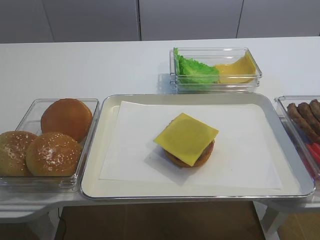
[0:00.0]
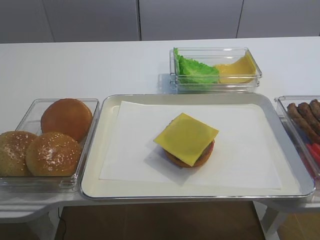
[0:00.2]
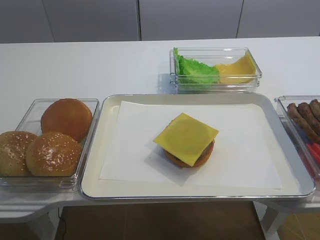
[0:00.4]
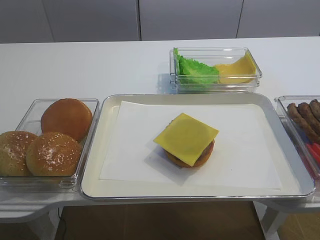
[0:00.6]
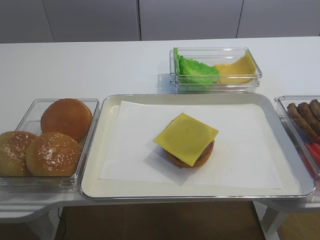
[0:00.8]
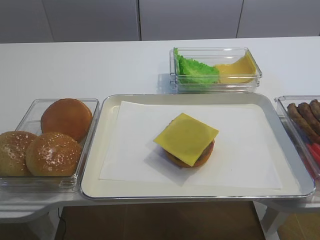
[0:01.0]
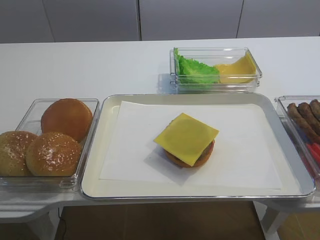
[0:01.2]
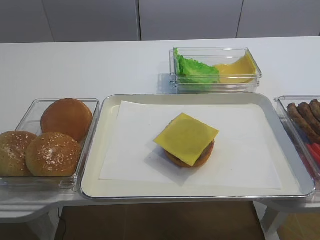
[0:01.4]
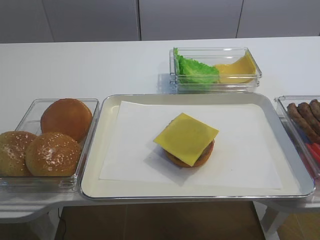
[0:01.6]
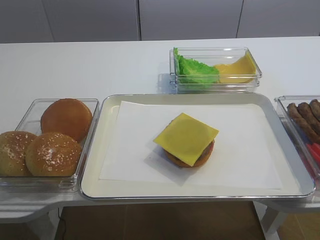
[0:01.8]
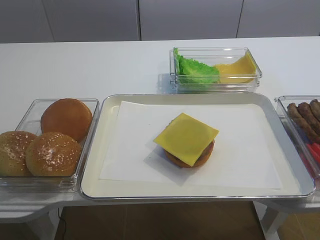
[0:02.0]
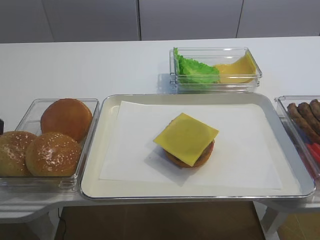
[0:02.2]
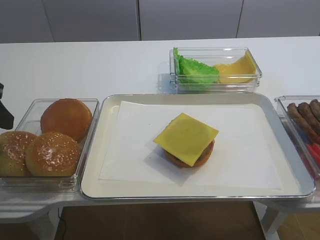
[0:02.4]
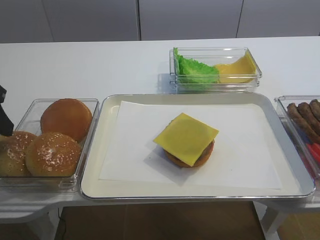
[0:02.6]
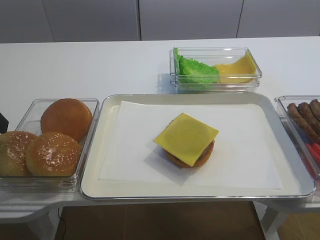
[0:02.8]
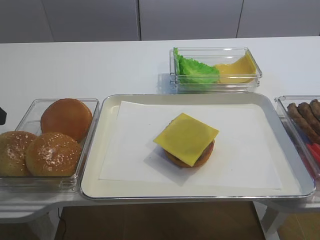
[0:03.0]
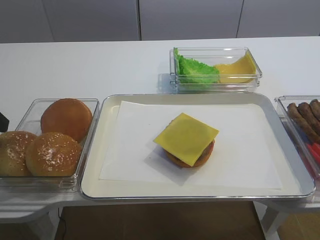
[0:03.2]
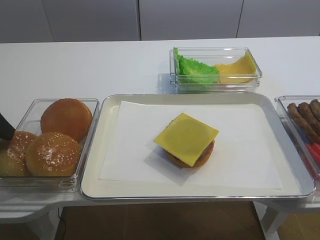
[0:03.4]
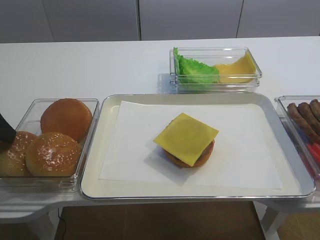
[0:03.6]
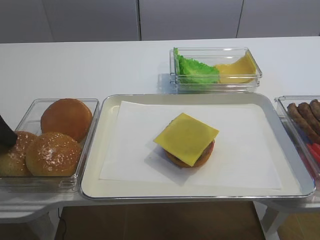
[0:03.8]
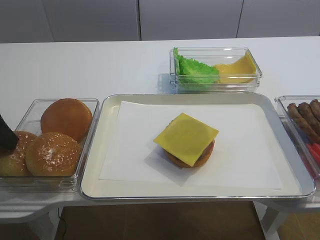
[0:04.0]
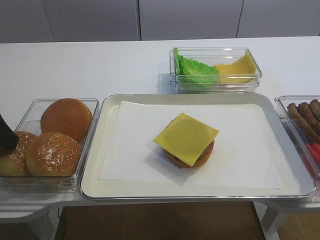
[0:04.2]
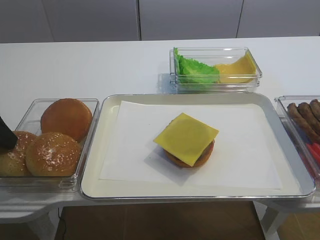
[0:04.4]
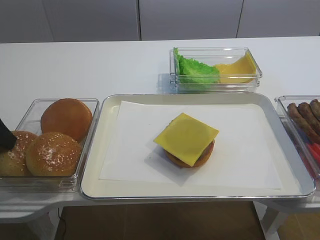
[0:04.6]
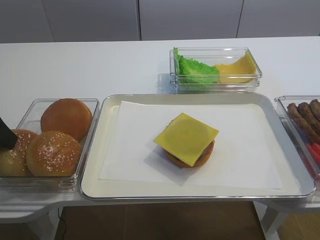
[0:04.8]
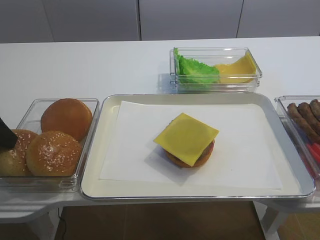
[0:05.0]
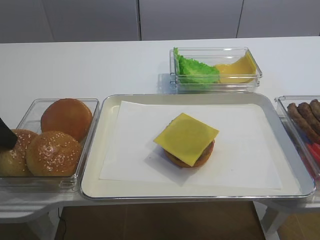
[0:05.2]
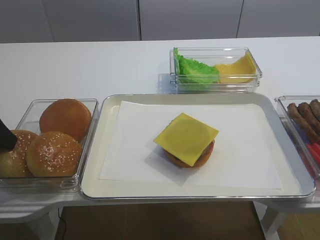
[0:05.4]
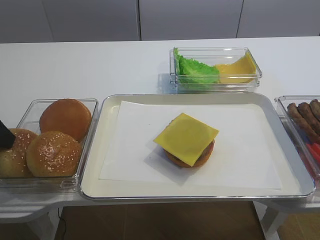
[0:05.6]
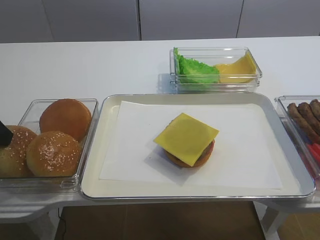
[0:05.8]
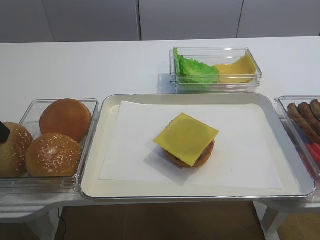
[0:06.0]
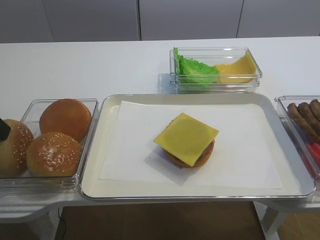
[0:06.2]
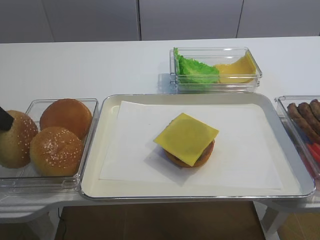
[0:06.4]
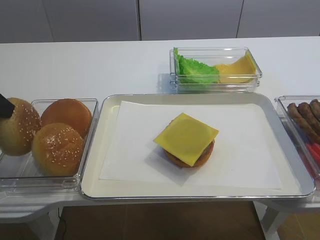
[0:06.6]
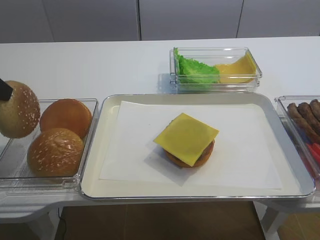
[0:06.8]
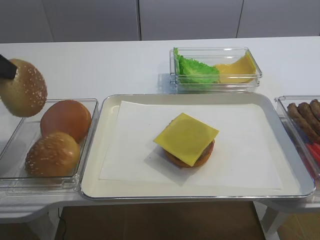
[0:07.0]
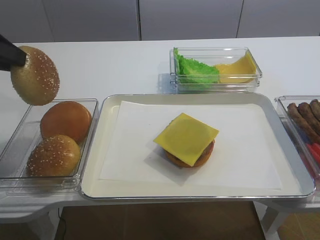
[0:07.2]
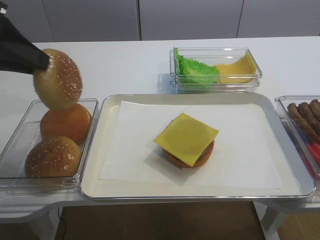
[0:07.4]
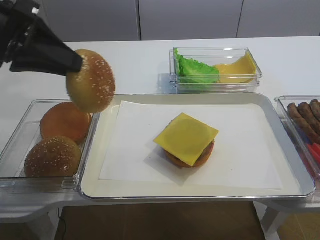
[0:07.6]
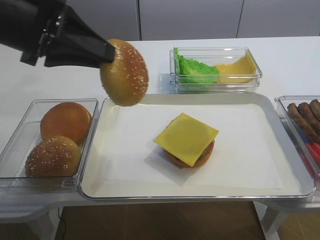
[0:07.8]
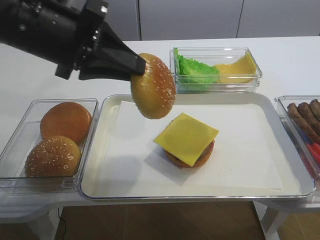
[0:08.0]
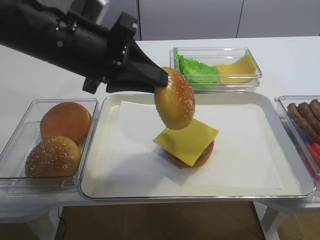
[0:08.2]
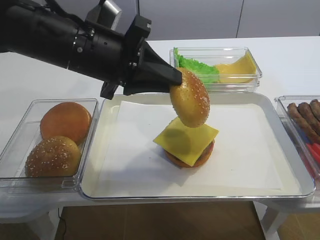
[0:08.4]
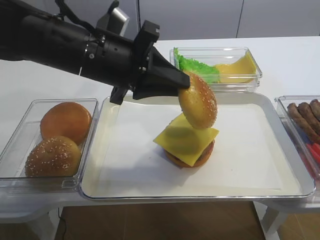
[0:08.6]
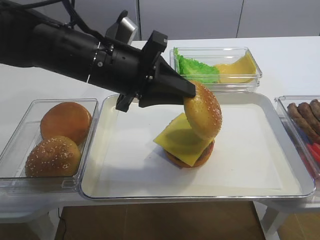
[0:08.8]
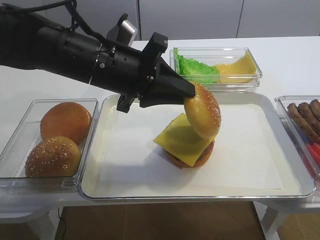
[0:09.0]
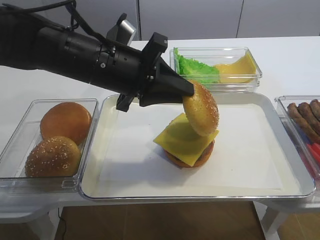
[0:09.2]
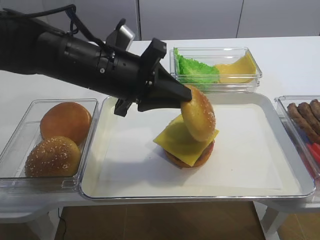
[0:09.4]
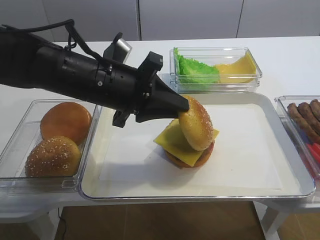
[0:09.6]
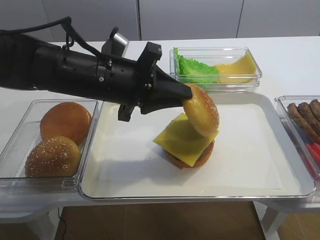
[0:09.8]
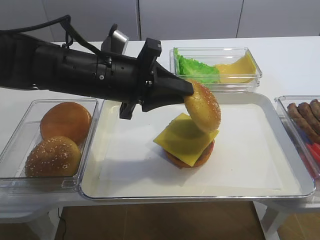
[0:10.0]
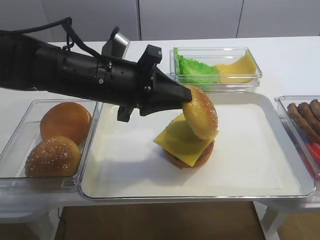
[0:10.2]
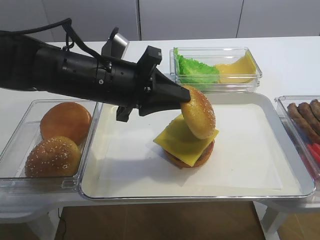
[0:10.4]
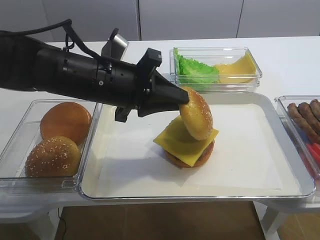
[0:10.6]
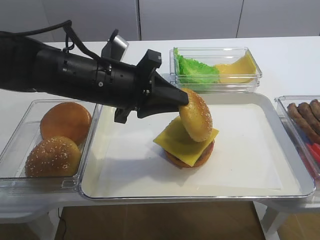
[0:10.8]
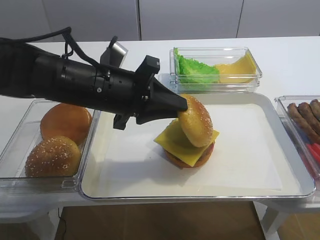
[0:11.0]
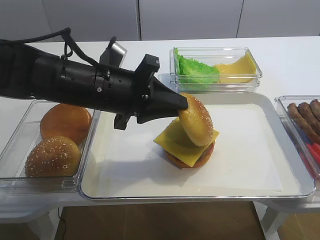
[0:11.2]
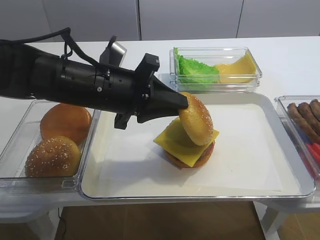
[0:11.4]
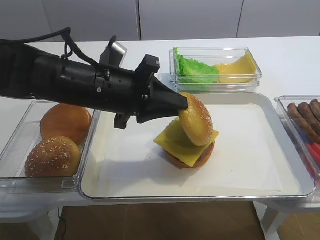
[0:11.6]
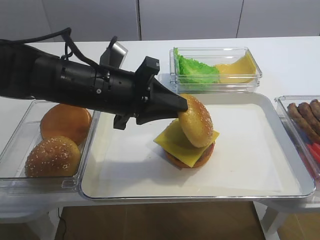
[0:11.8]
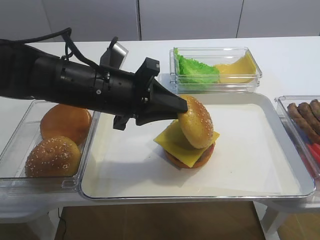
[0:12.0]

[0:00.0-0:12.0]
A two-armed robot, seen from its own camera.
Step, 0:00.0 to 0:07.4: Pick up the hamburger lid with the left gripper.
0:04.4 to 0:06.0: The left gripper closes.
0:06.0 to 0:07.6: The left gripper moves to the right and upward, approximately 10 cm.
0:07.6 to 0:09.0: The left gripper shifts approximately 15 cm to the right and downward.
0:09.0 to 0:10.4: The grippers move only a little.
0:10.4 to 0:12.0: The right gripper closes up.

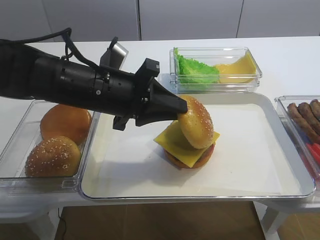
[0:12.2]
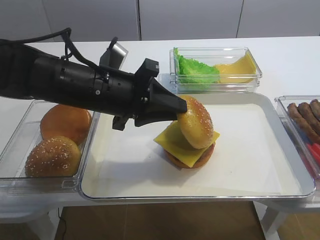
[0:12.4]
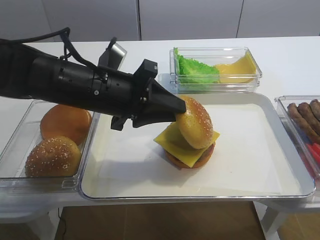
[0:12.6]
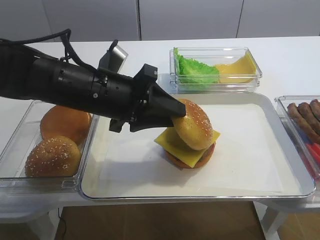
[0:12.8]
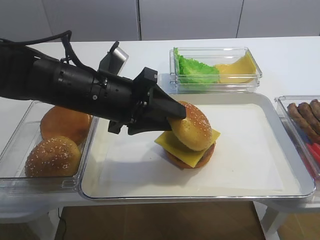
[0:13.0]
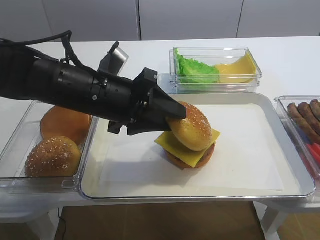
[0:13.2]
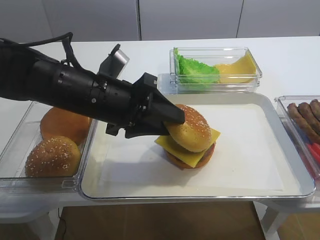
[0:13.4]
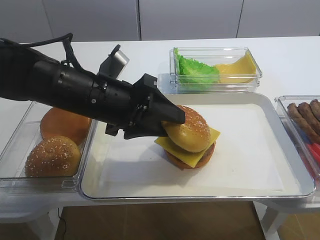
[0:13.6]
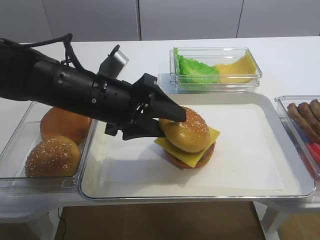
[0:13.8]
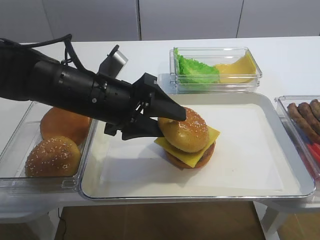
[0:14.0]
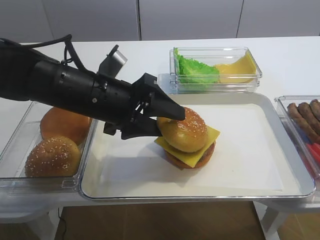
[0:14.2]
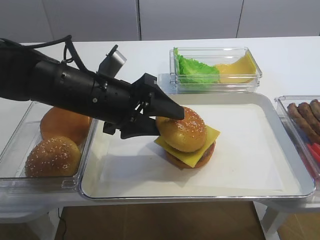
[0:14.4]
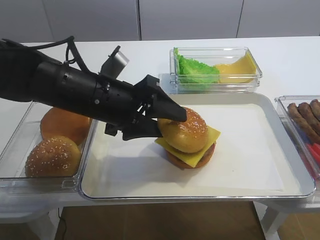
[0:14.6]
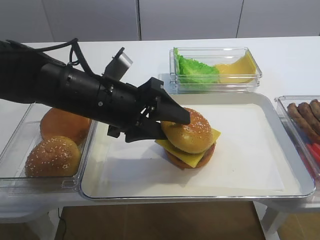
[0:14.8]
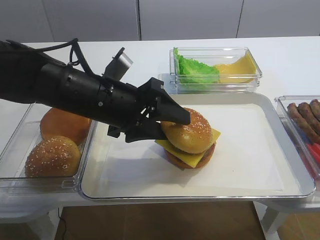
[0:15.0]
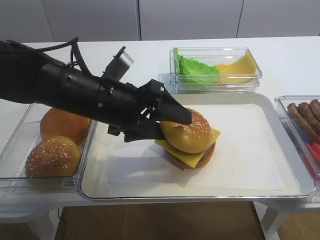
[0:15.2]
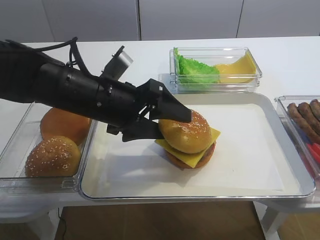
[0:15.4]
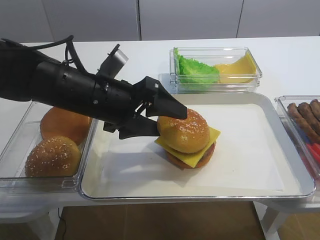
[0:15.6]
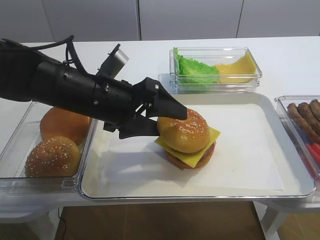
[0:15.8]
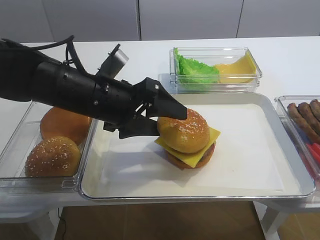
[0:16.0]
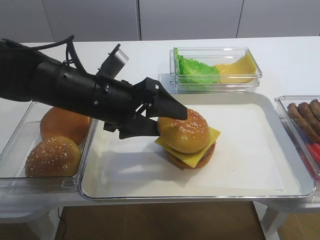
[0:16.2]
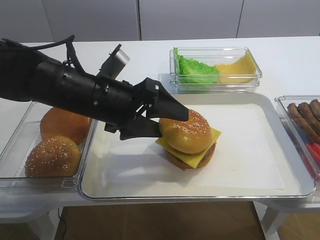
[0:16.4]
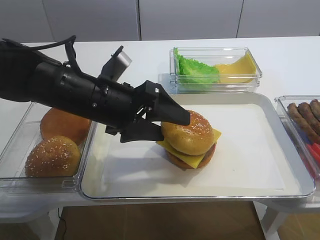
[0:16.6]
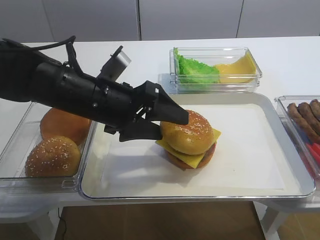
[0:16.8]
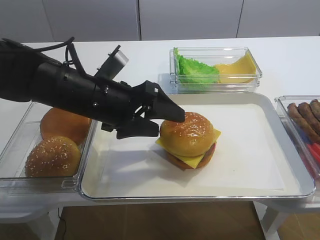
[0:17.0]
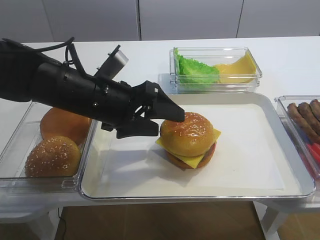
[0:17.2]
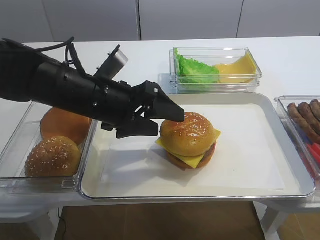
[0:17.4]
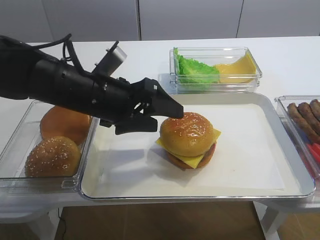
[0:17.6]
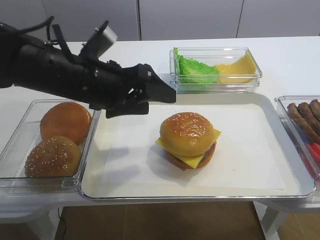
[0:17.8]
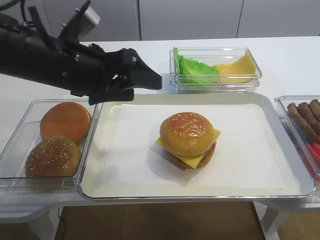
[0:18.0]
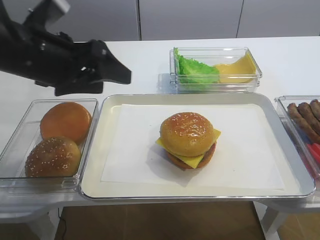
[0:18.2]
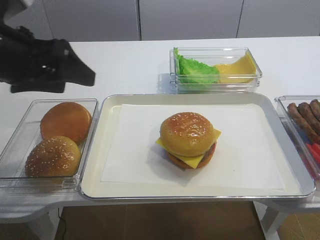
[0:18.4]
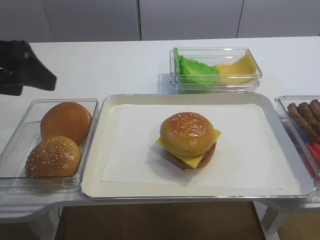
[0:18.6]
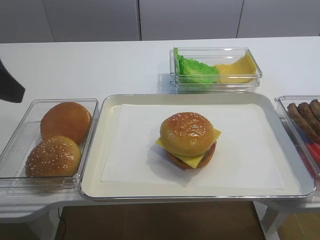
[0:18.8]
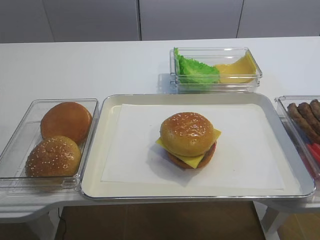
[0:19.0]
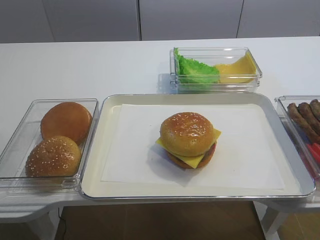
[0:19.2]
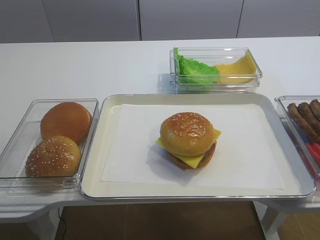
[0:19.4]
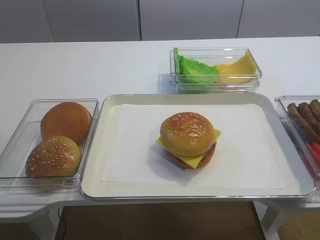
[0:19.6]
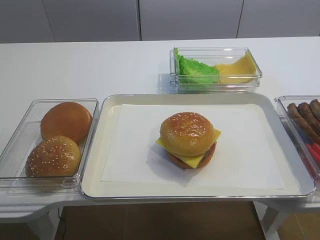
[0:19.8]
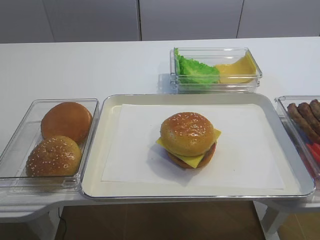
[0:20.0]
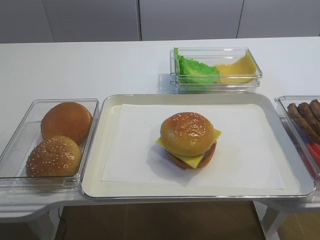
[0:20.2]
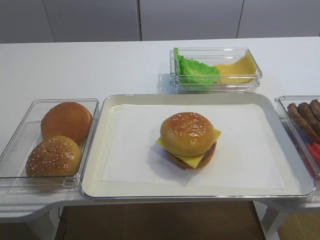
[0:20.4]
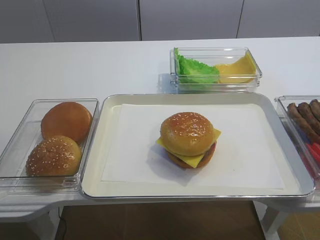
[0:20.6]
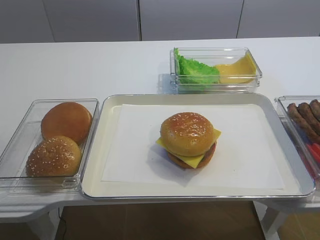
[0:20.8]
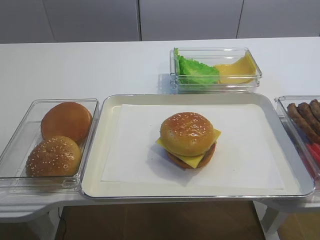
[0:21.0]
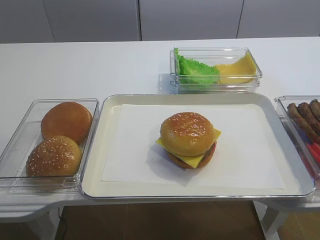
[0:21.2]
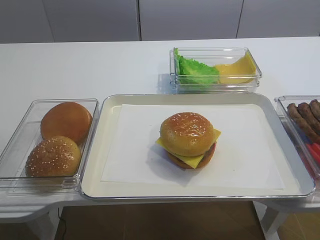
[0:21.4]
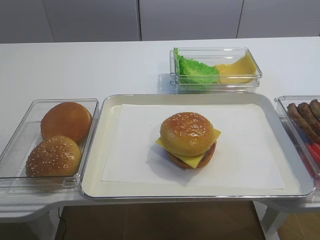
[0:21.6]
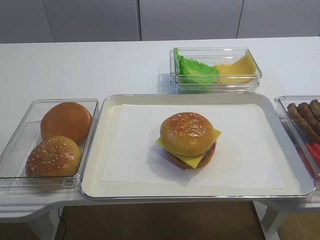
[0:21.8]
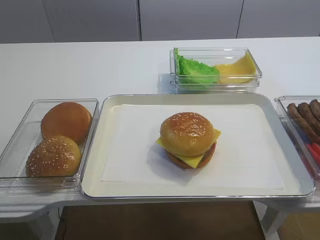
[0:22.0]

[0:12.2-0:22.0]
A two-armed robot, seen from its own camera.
Step, 0:12.2 to 0:17.8: Place the hamburger lid on the cheese slice with the left gripper.
0:12.2 to 0:13.6: The left gripper opens.
0:13.6 to 0:15.0: Neither gripper changes place.
0:15.0 to 0:16.4: Both grippers stay put.
0:16.4 to 0:17.8: The grippers make only small movements.
0:17.8 to 0:19.2: The left gripper travels to the left, backward and upward by about 25 cm.
